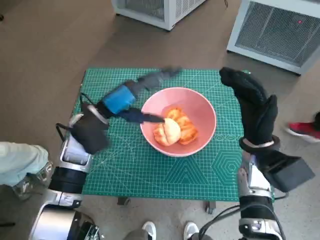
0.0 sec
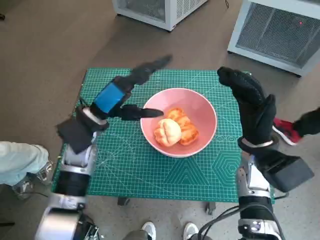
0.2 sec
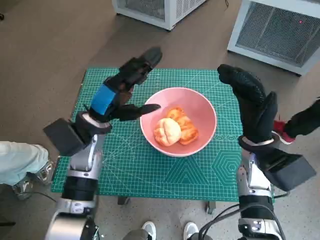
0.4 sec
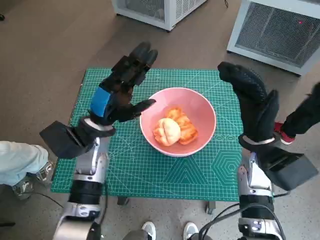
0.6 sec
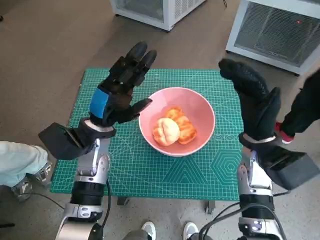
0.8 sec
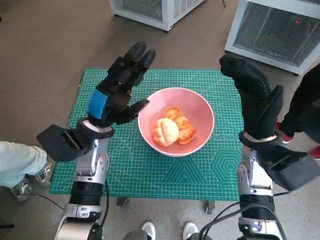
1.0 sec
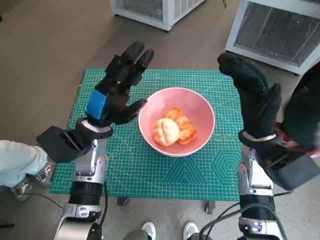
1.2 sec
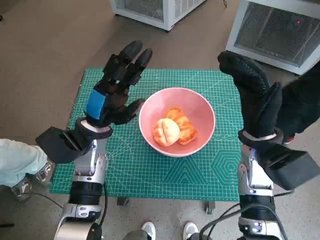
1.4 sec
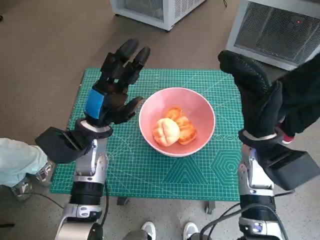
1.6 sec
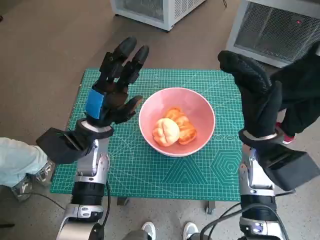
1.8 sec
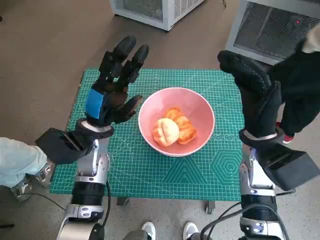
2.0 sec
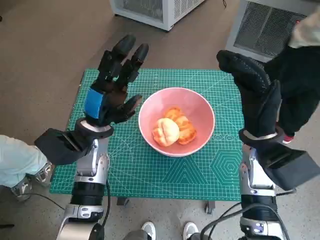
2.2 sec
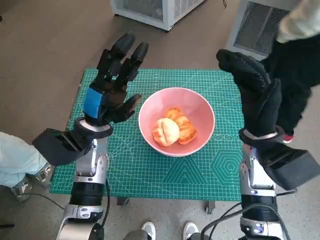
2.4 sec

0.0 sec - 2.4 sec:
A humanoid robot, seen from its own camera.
Task of the whole recording: Push the bowl into the center of the table and put the bread into the bowl.
1.2 sec - 2.4 sec: Neither hand changes place.
